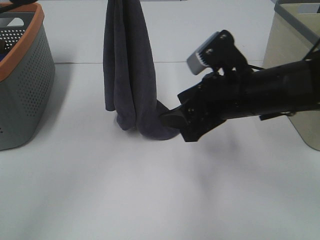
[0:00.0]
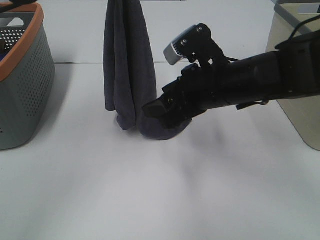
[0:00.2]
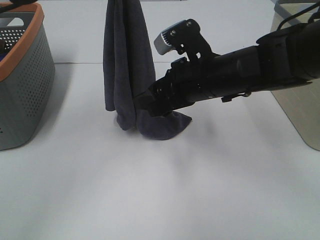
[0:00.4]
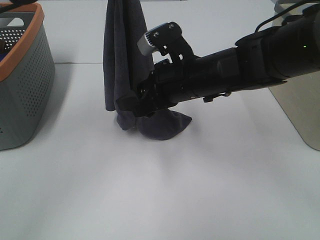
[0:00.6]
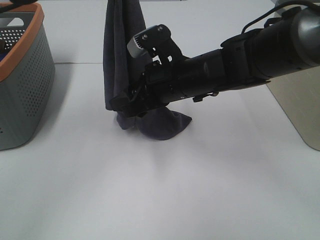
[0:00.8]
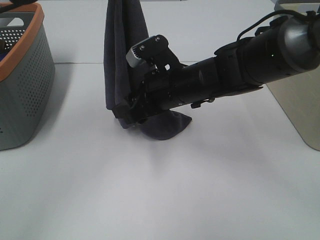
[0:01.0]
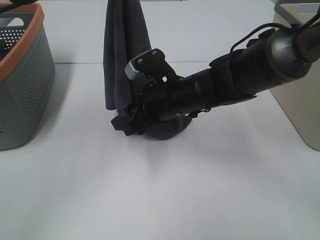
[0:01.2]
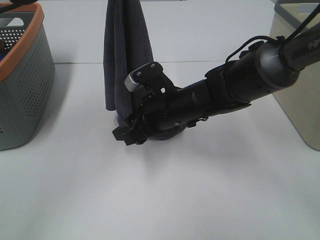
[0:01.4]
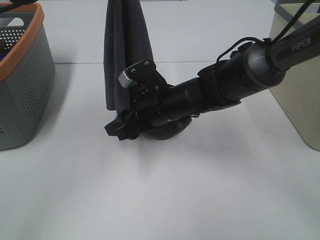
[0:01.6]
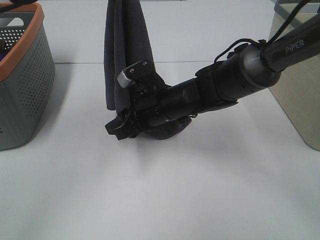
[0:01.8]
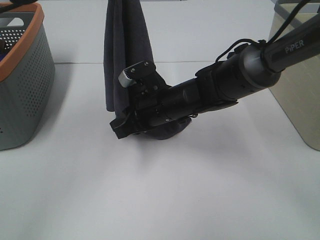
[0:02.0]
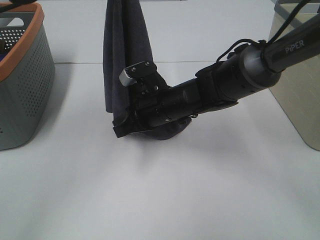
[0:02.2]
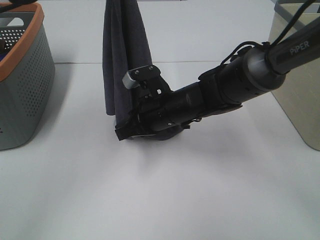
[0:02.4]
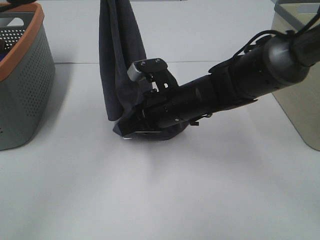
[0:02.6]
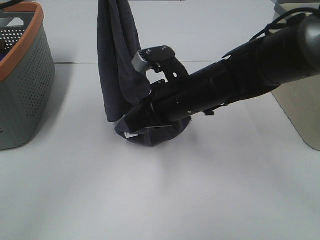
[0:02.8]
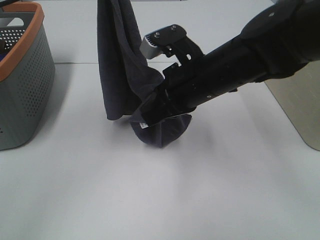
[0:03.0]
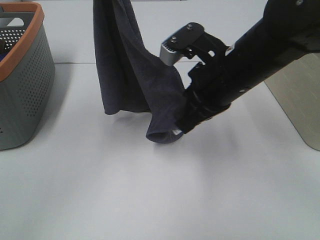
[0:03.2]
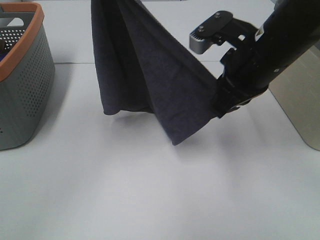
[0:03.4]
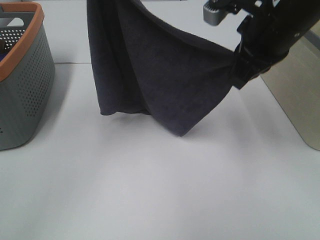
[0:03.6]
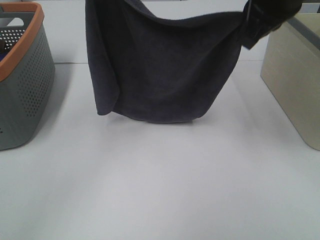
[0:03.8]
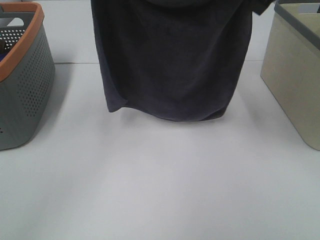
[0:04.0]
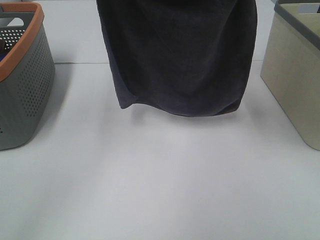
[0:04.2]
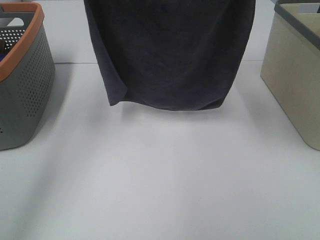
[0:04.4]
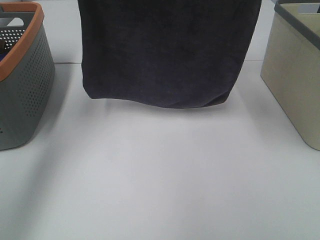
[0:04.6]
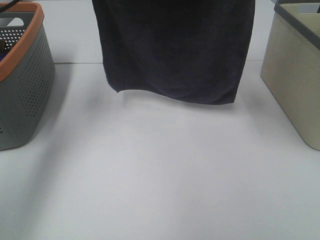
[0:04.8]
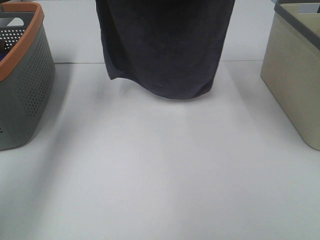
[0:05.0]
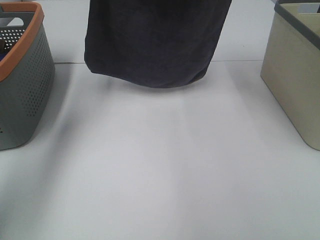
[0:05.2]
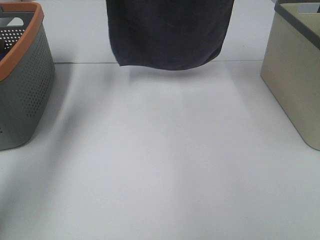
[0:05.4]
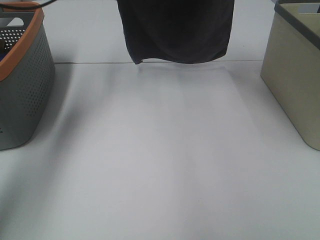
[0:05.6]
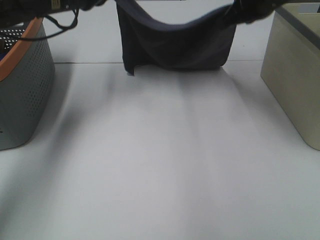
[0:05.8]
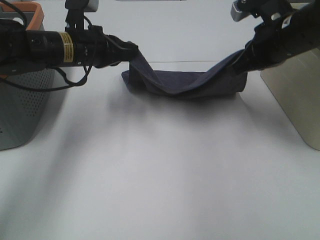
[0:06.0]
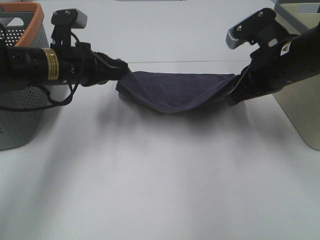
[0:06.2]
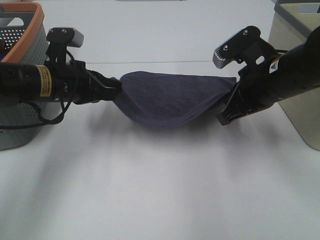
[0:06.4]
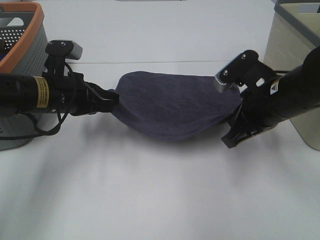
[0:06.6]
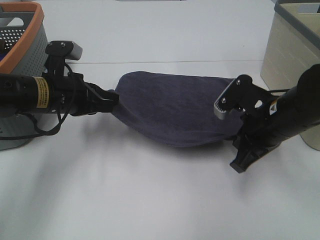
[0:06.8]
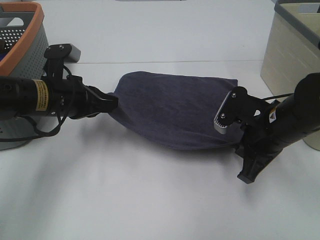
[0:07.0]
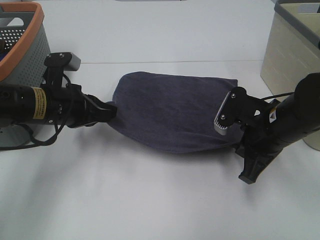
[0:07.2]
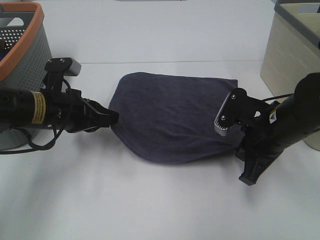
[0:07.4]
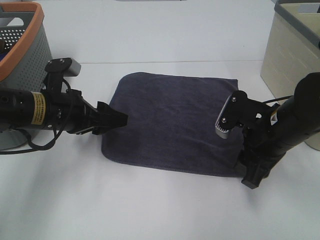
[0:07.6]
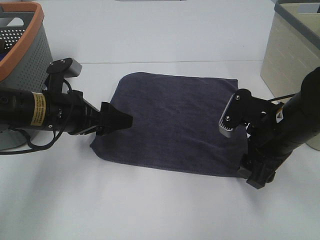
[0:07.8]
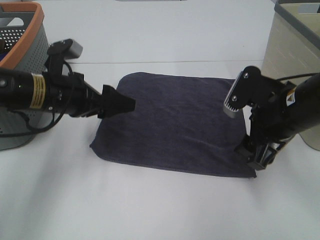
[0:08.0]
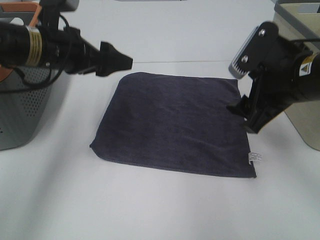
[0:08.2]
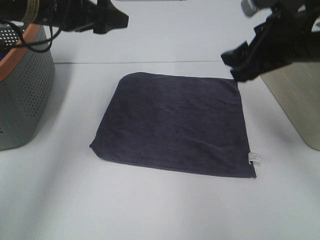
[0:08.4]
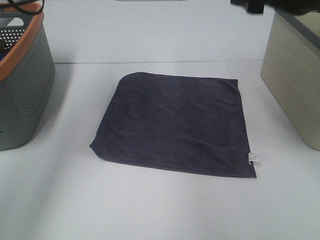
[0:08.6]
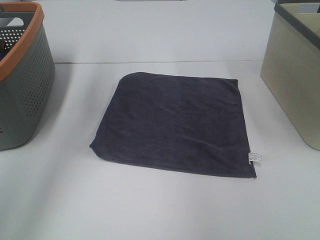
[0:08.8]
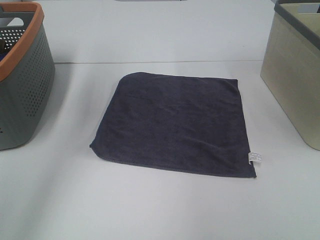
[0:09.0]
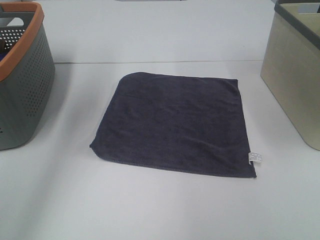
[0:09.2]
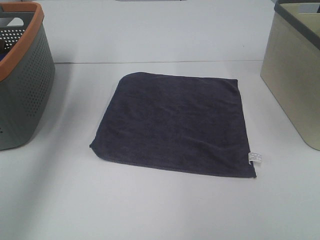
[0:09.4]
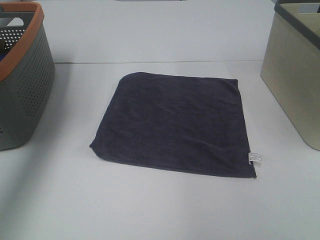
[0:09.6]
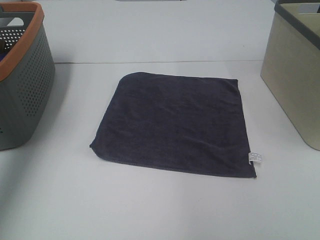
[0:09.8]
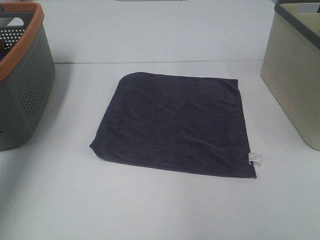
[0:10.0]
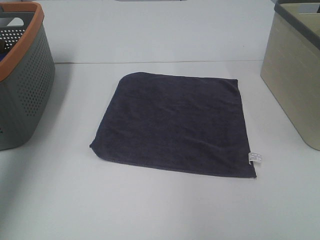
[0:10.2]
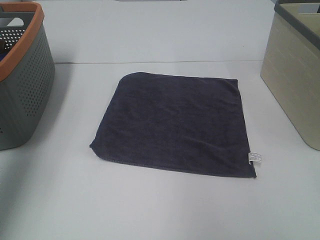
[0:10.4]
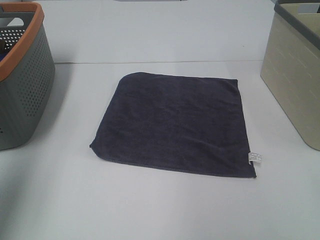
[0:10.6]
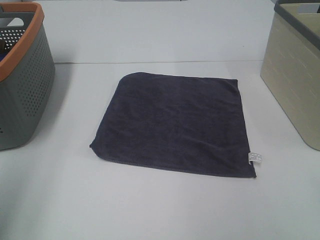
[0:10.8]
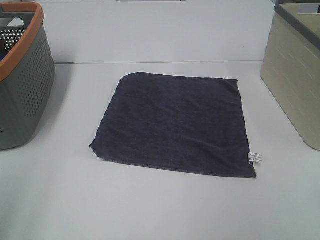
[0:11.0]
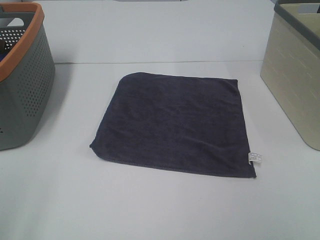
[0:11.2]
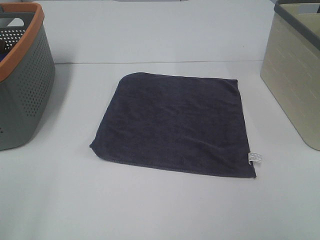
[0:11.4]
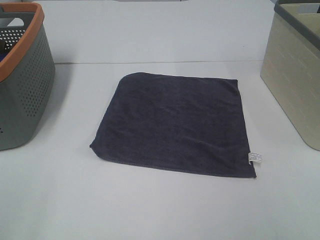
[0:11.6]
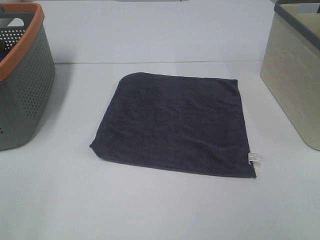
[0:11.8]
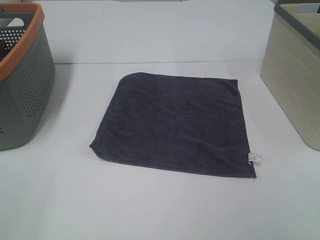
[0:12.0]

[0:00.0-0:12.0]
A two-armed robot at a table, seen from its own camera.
Task of the whole recording: Remove the towel and place it.
Step, 0:02.0 to 0:03.8: Right hand: spread the grey towel flat on the table.
0:00.0 to 0:01.6: The right gripper goes roughly 15 cm to the left, downward and forward.
0:01.6 to 0:03.0: The right gripper is displaced upward by some 10 cm, and closes.
0:03.0 to 0:04.4: The right gripper travels upward and to the right by some 20 cm.
0:04.4 to 0:06.0: Both grippers move downward, roughly 15 cm.
0:06.0 to 0:07.6: The left gripper heads backward and downward, covering approximately 10 cm, and opens its fingers. The right gripper goes roughly 15 cm downward and backward, and opens its fingers.
0:07.6 to 0:09.0: The two grippers go approximately 25 cm upward.
0:09.0 to 0:10.4: The left gripper heads backward and to the left, covering approximately 20 cm.
0:10.4 to 0:12.0: The left gripper moves backward and downward, roughly 25 cm.

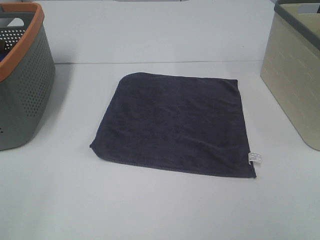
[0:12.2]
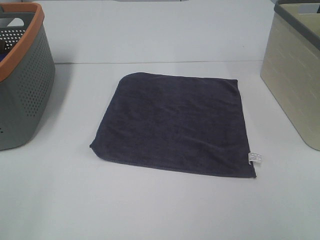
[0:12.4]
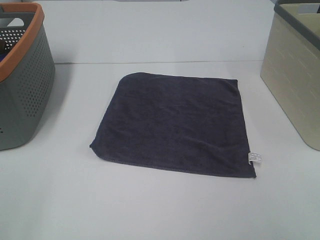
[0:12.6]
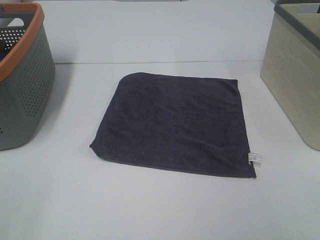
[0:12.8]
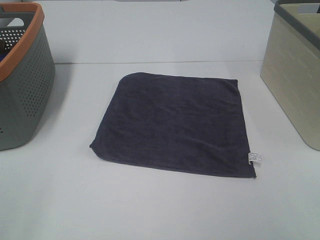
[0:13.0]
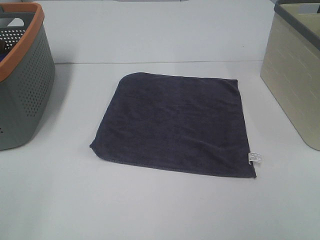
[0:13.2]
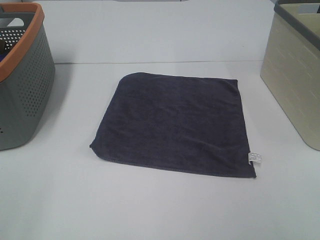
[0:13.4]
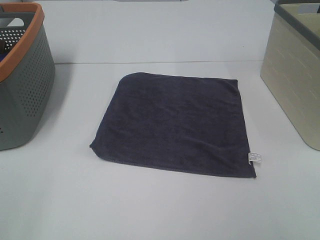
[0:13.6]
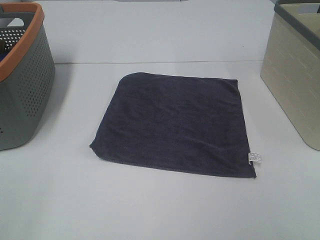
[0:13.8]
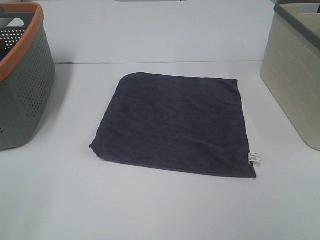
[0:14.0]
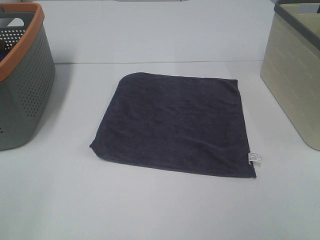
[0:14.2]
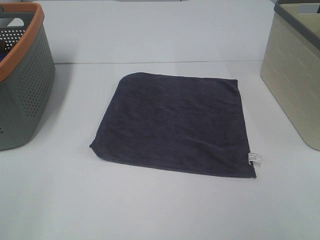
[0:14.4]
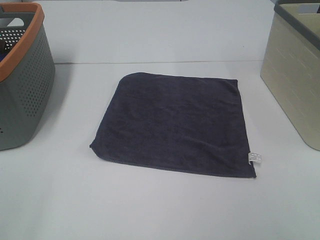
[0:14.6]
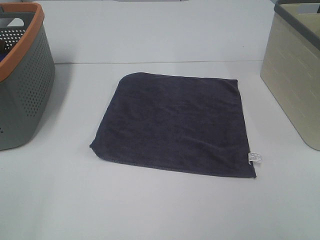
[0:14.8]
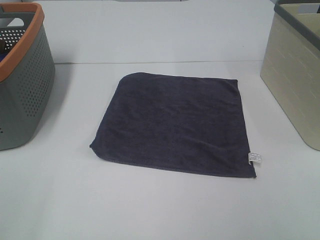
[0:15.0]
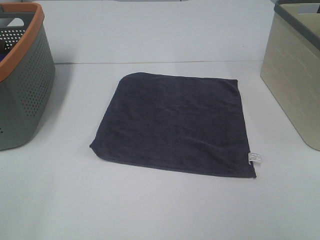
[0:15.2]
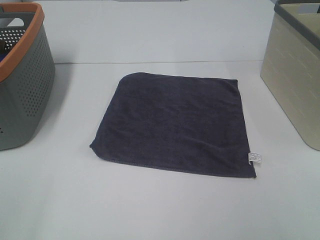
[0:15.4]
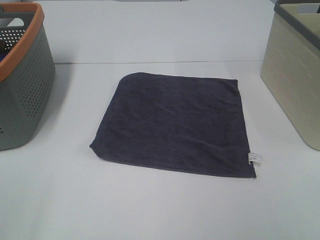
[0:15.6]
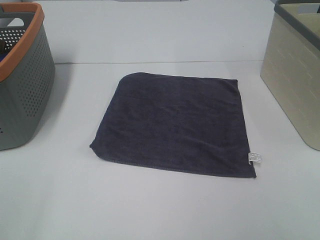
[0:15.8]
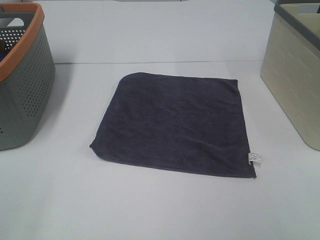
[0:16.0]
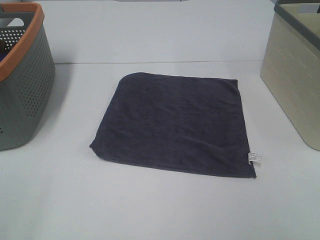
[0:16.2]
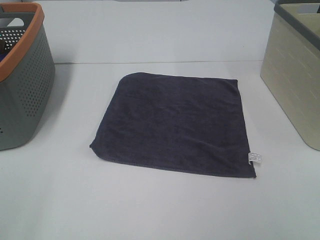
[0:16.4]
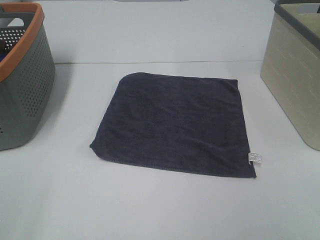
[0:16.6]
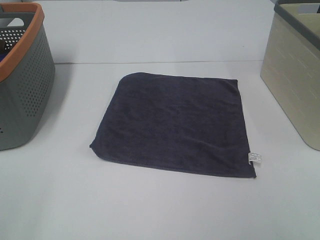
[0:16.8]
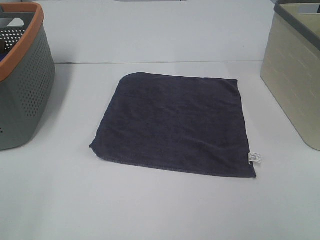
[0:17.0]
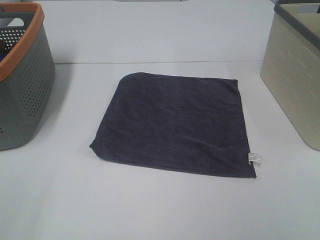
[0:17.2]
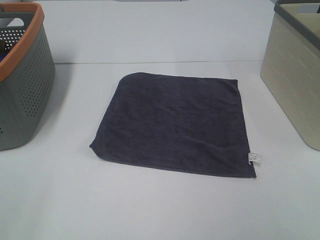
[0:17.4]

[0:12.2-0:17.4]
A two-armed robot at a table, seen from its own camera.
Task of the whole recording: Remove the towel and place it.
0:15.6 to 0:17.4: Both grippers stay about where they are.

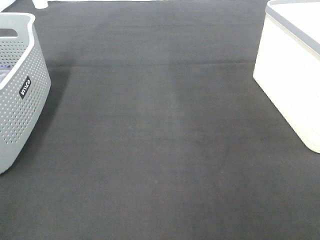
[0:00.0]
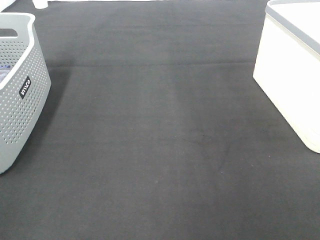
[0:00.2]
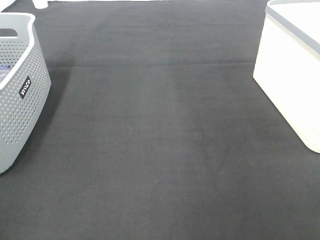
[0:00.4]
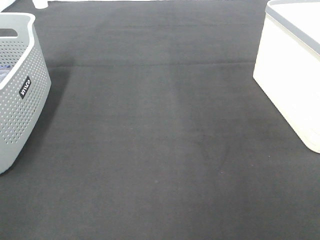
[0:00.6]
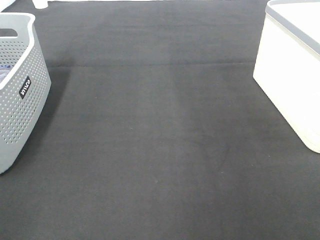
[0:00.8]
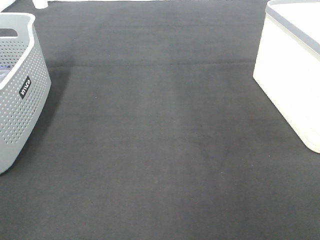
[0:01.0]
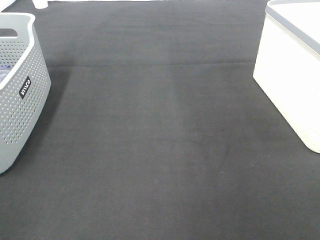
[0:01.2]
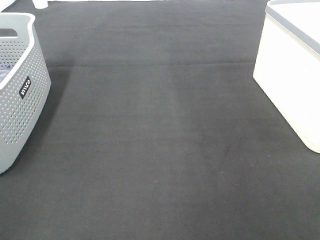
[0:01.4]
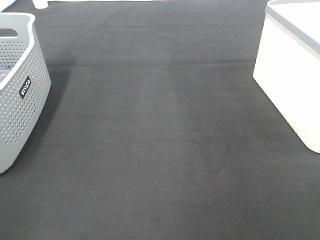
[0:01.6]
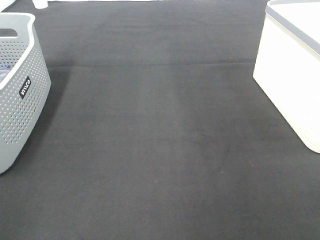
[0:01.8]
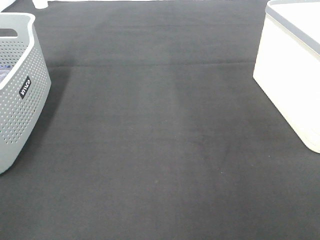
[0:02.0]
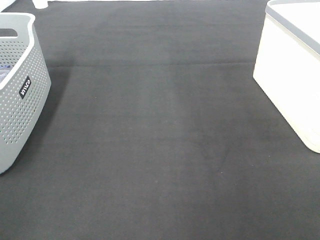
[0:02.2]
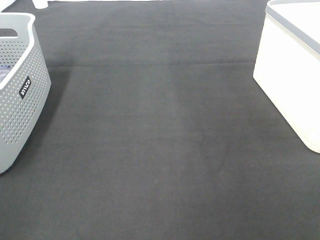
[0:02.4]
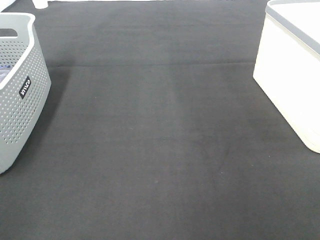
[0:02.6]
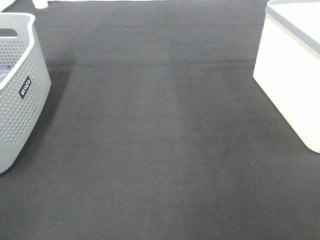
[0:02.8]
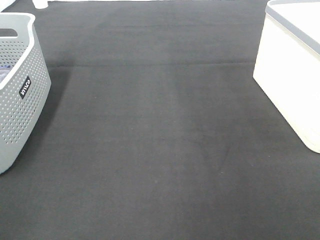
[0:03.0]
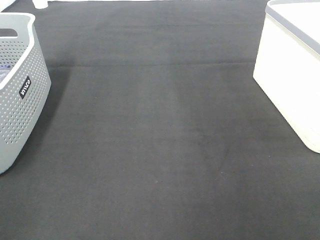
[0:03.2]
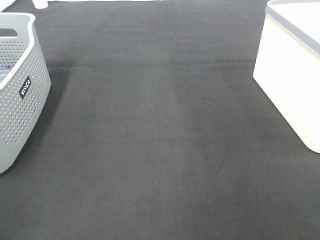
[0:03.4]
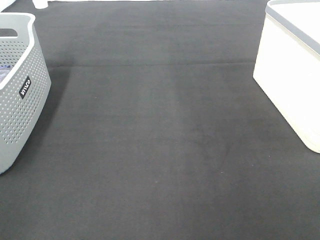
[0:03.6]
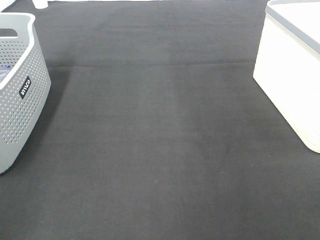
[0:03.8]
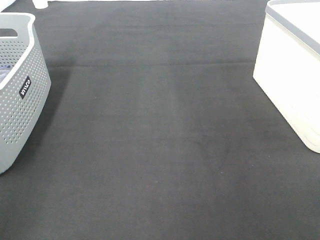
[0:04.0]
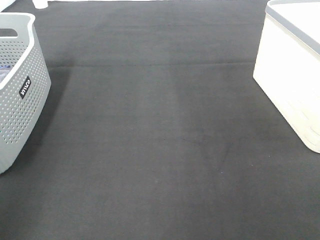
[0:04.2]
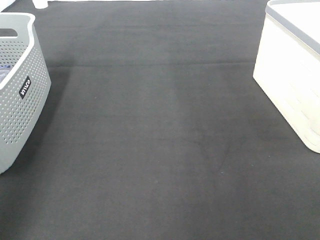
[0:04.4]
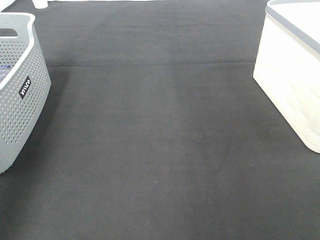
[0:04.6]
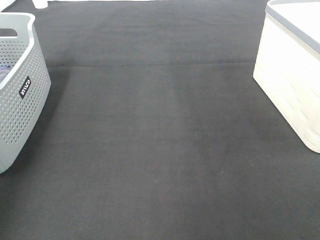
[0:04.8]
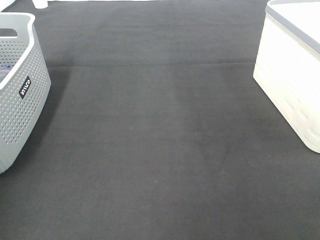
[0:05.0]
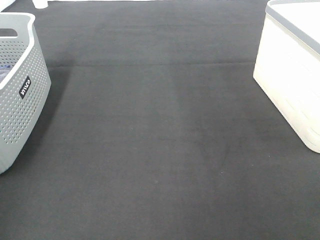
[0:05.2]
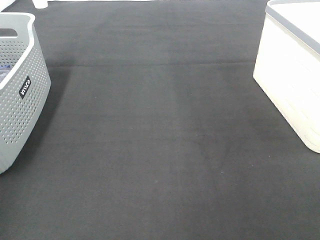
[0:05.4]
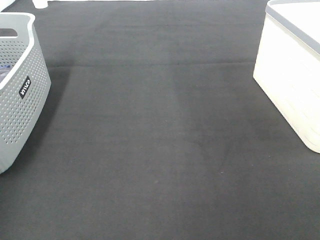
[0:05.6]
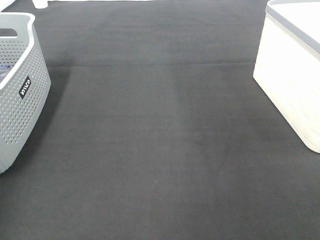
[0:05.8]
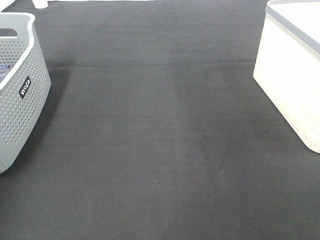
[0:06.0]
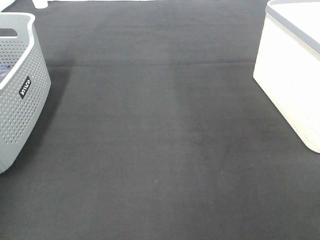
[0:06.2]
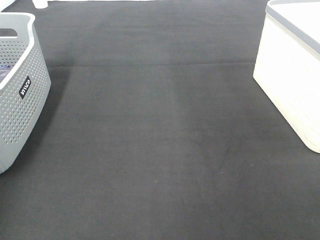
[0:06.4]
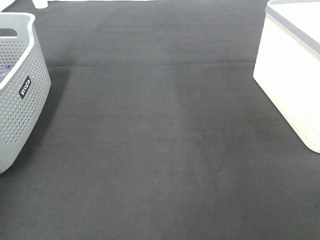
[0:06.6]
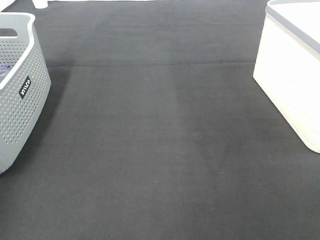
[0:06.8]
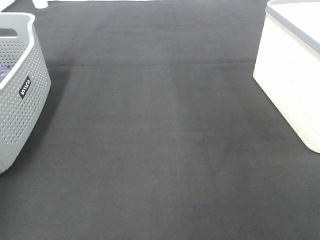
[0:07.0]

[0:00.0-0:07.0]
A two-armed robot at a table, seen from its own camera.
Task of the whole recording: Remove the towel and place it.
0:01.4 to 0:02.8: The two grippers keep their place.
